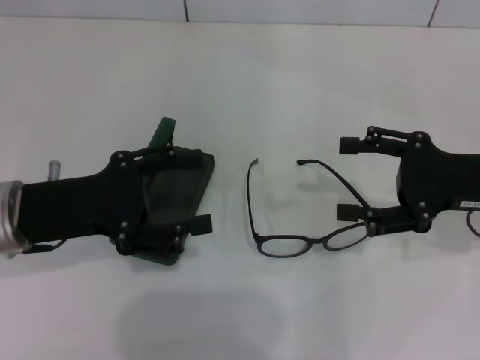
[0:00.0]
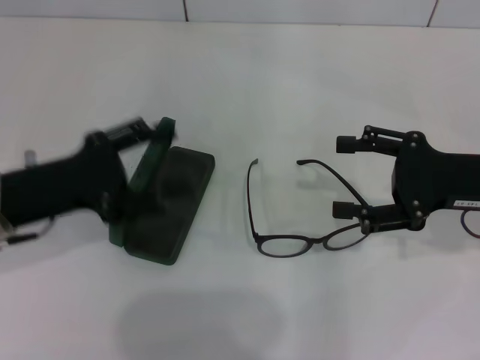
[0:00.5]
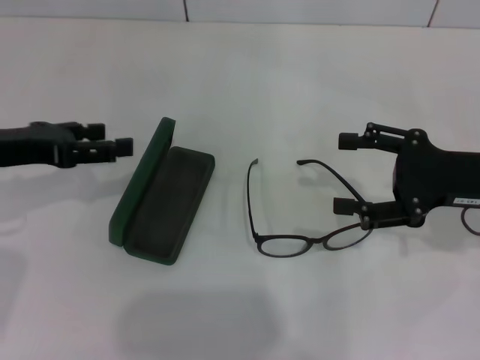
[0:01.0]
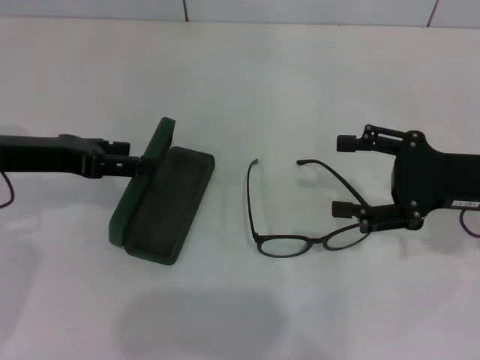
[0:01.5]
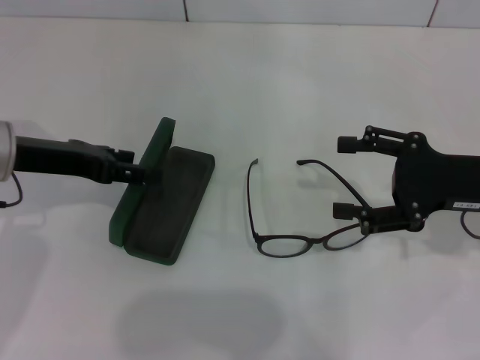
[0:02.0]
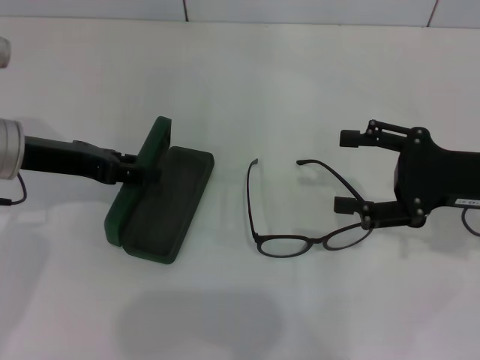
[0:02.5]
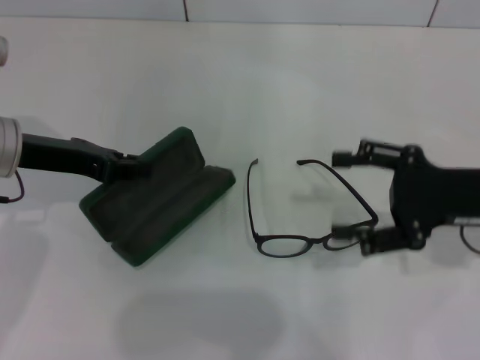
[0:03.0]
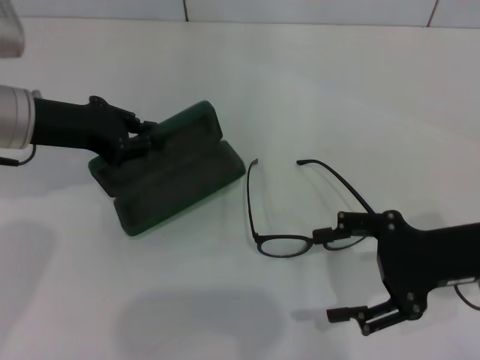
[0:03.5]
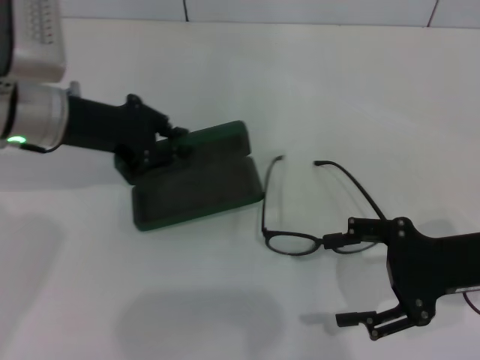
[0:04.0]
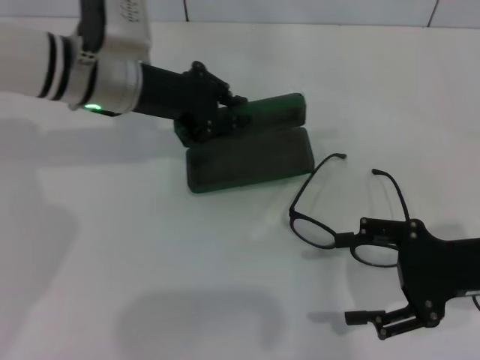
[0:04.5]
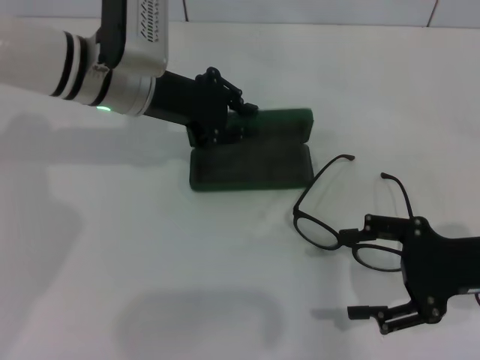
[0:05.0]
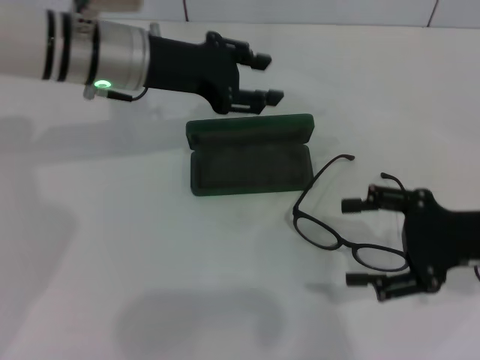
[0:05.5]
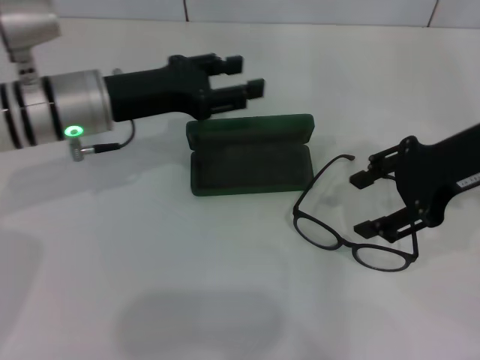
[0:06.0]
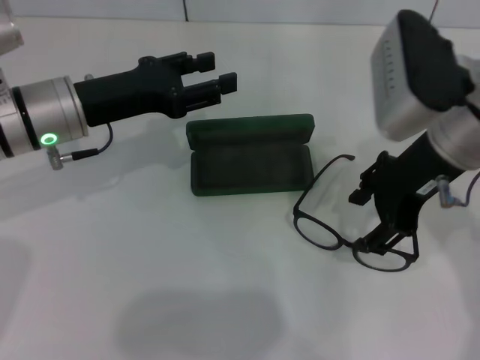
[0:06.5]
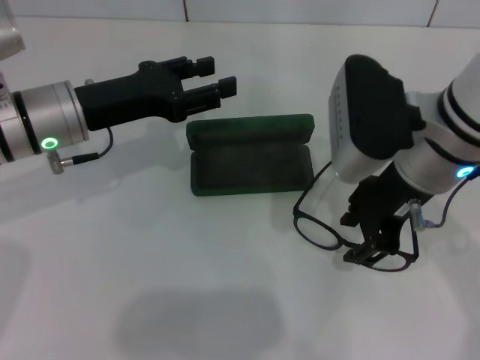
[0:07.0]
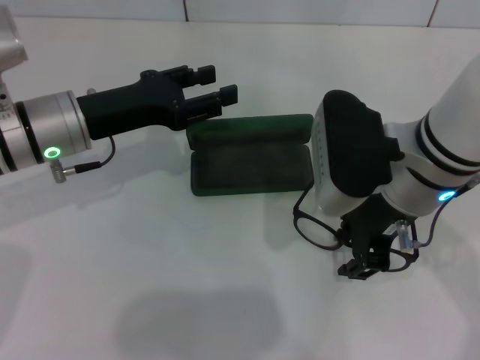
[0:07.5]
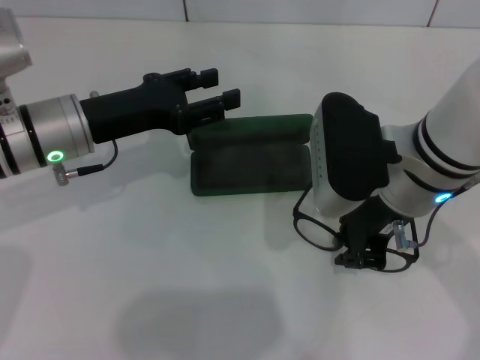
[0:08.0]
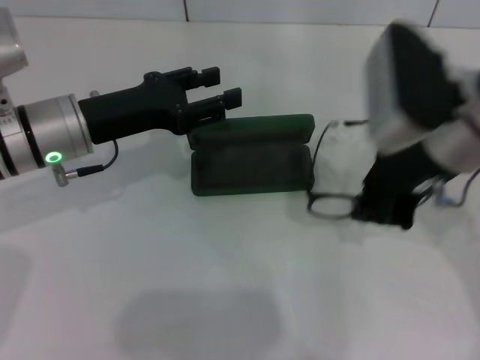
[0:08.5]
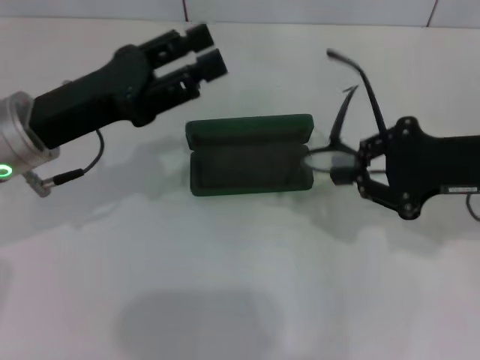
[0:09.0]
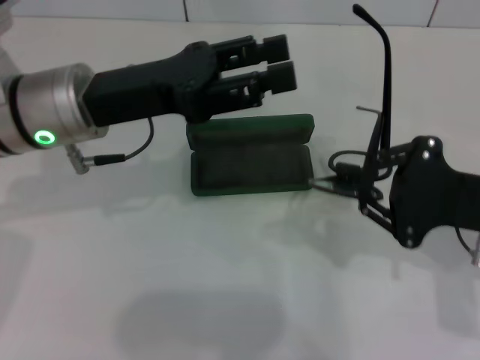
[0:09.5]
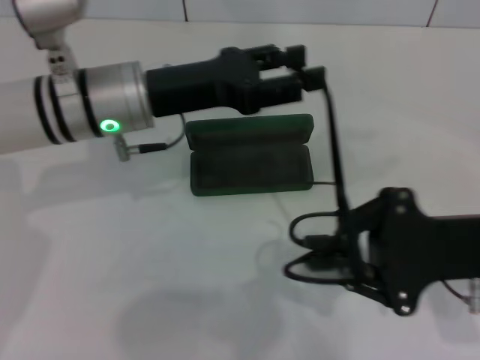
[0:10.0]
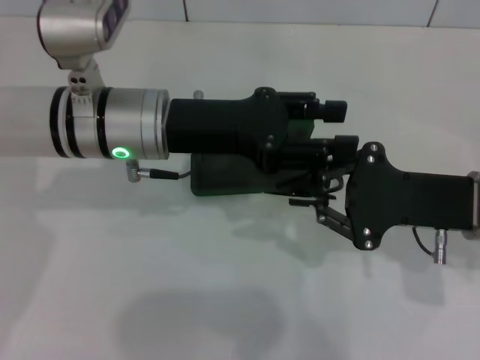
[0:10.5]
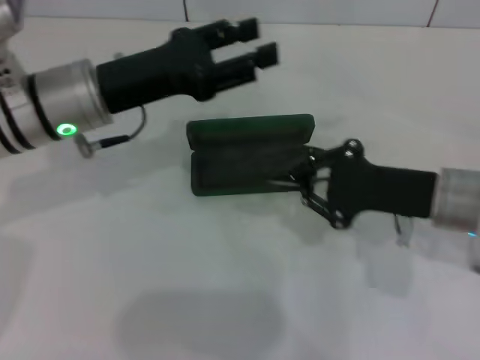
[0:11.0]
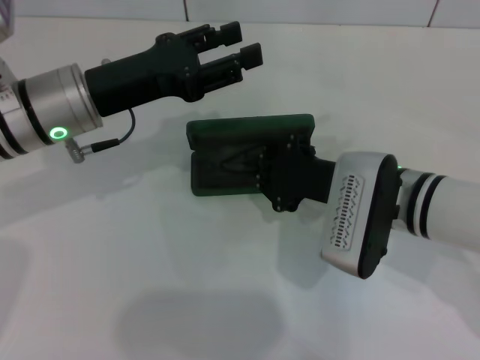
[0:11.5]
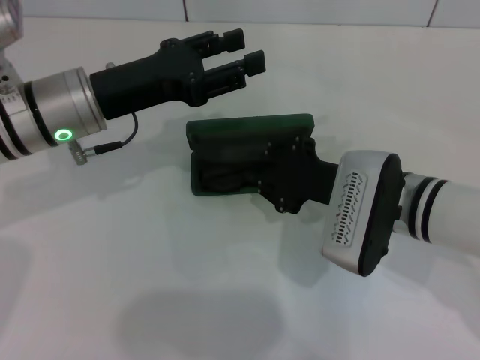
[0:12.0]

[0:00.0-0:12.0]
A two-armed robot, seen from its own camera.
Step, 0:00.0 to 0:02.5: Grab the glasses case with your left hand.
Step, 0:03.0 to 0:05.5: Place the glasses case in the center of the table with your left hand.
Step, 0:06.0 to 0:08.0: Grab the eyeglass frame with your right hand.
Step, 0:08.5 to 0:10.0: Fold the frame with your left hand.
0:00.0 to 0:02.0: The left gripper is displaced forward by approximately 5 cm.
0:02.0 to 0:04.0: The left gripper shifts by roughly 5 cm, and closes.
0:04.0 to 0:06.0: The left gripper opens. The right gripper goes some 10 cm upward and forward.
0:06.0 to 0:08.0: The right gripper is displaced to the left by about 10 cm, and closes.
0:08.0 to 0:10.0: The right gripper is displaced to the right and backward by approximately 10 cm. Meanwhile the left gripper shifts roughly 5 cm to the right.
0:10.0 to 0:12.0: The right gripper is displaced to the left and forward by some 10 cm.

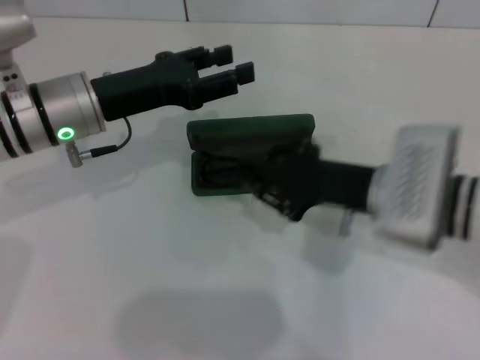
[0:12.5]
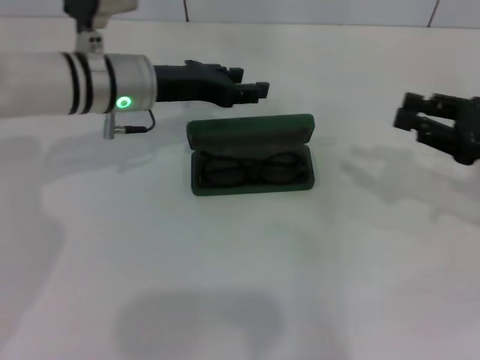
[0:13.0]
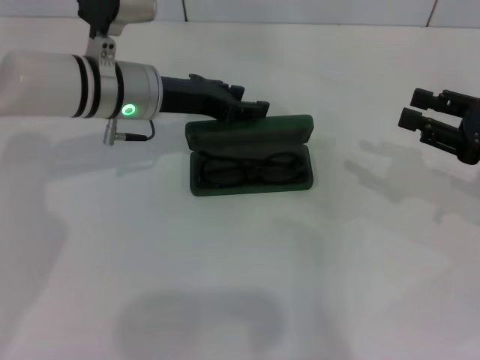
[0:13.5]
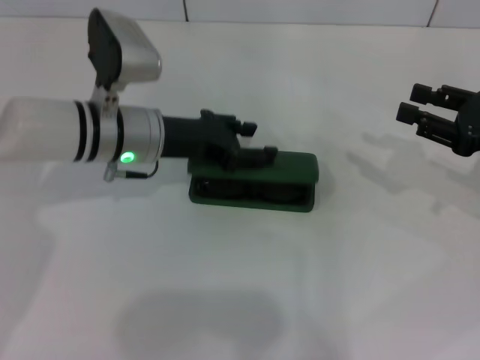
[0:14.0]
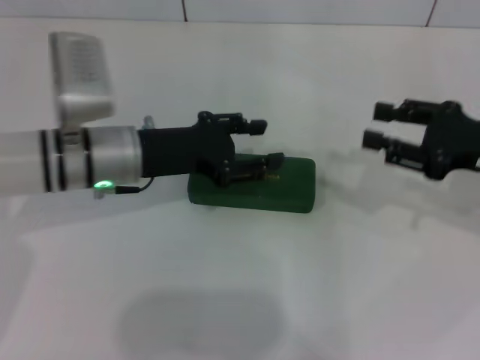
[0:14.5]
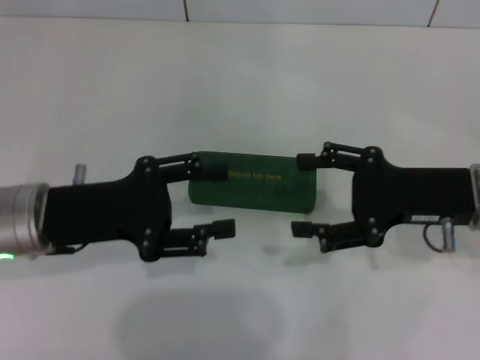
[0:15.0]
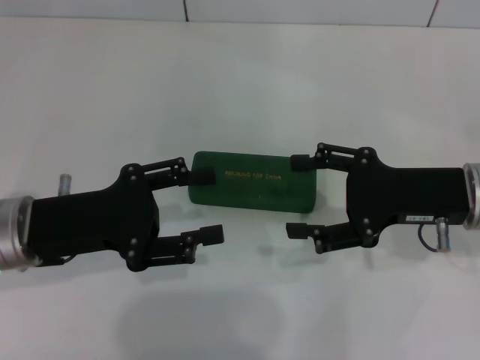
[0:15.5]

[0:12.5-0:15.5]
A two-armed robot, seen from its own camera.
Step, 0:12.5 to 0:14.0: Close the glasses case with your left hand.
0:12.5 to 0:14.0: The right gripper goes about 15 cm to the right. Meanwhile the left gripper shifts by about 5 cm.
0:14.0 to 0:15.5: The right gripper travels to the left by approximately 10 cm, and opens its fingers; the left gripper moves backward and to the left, about 15 cm.

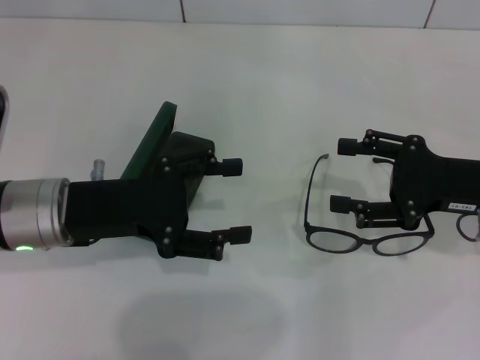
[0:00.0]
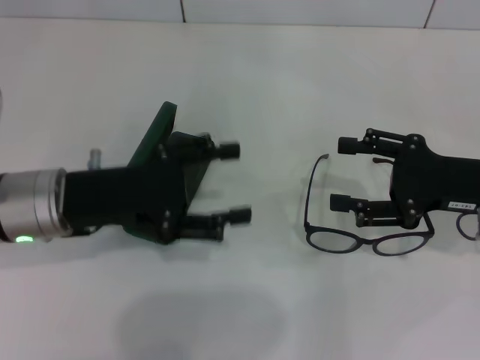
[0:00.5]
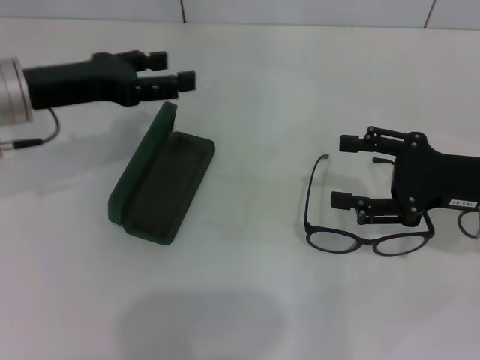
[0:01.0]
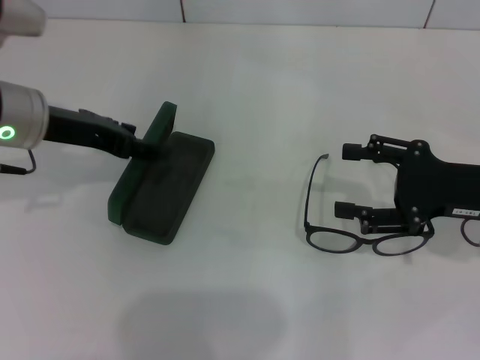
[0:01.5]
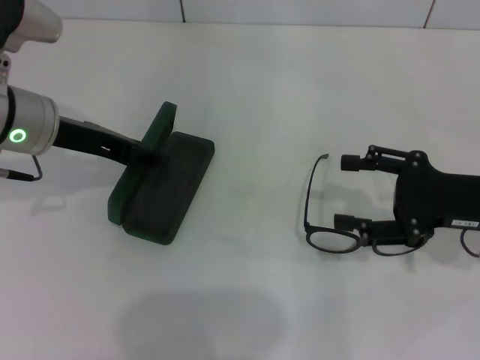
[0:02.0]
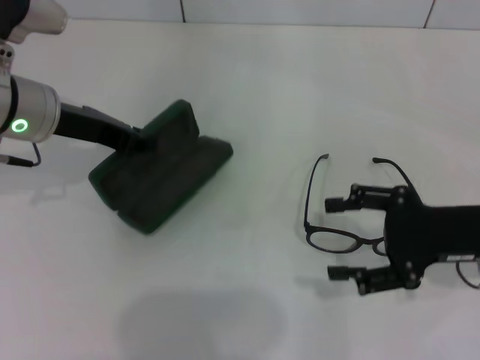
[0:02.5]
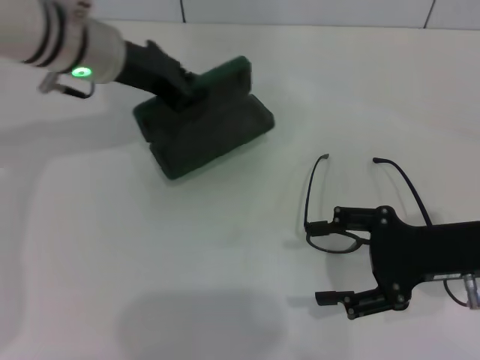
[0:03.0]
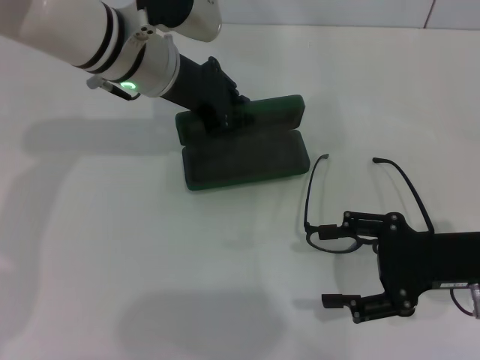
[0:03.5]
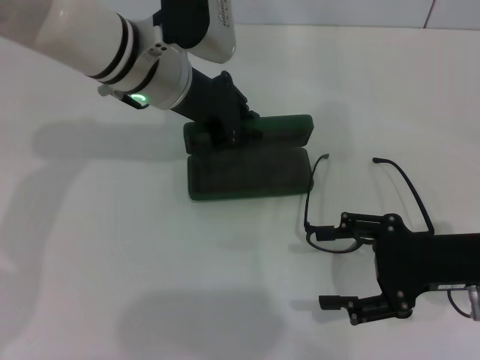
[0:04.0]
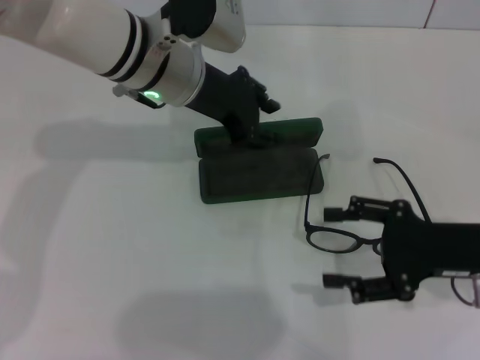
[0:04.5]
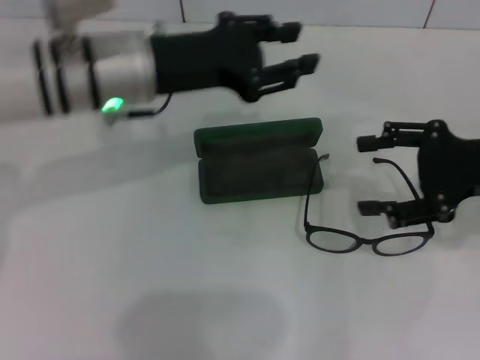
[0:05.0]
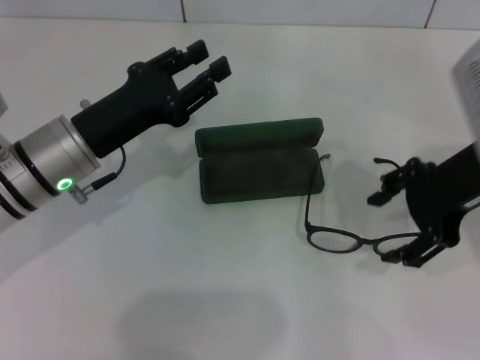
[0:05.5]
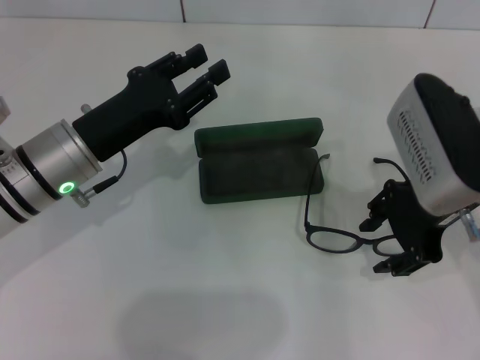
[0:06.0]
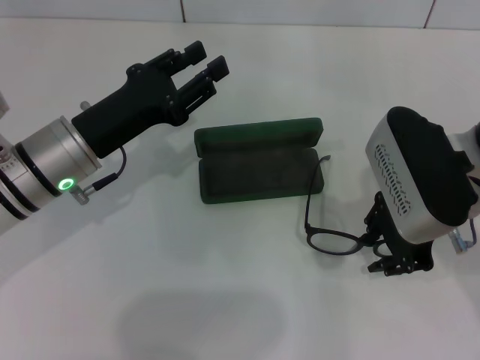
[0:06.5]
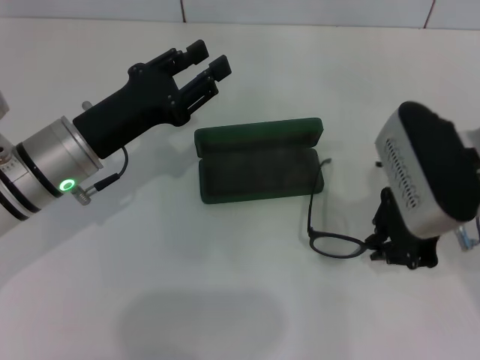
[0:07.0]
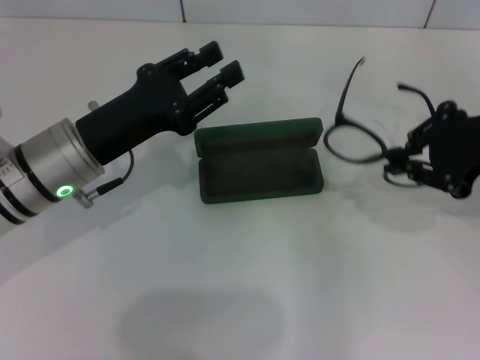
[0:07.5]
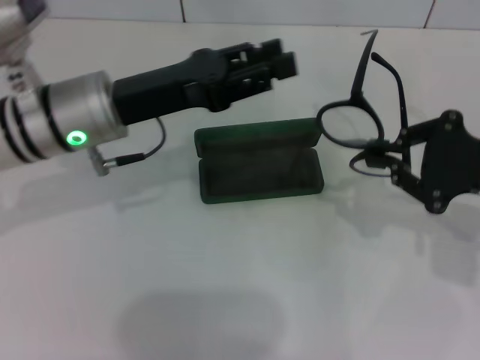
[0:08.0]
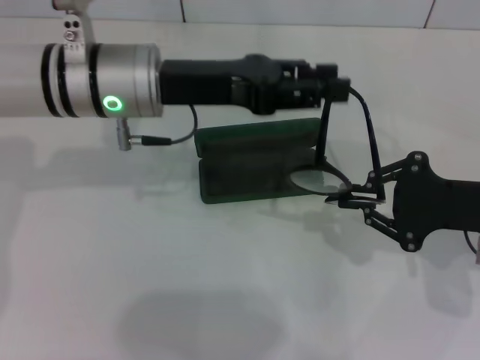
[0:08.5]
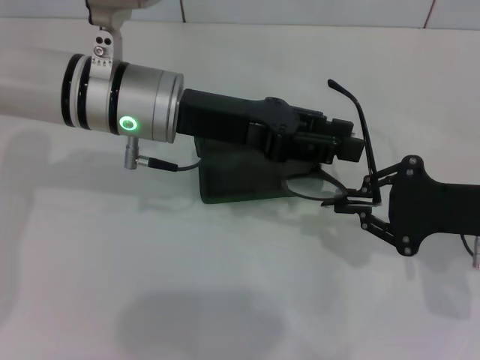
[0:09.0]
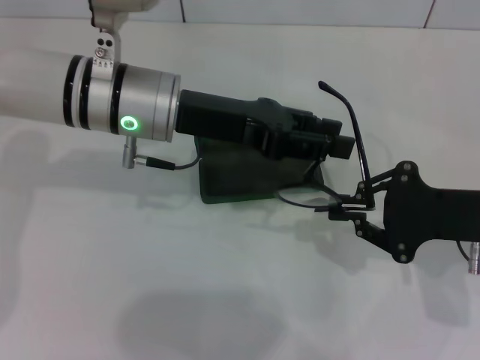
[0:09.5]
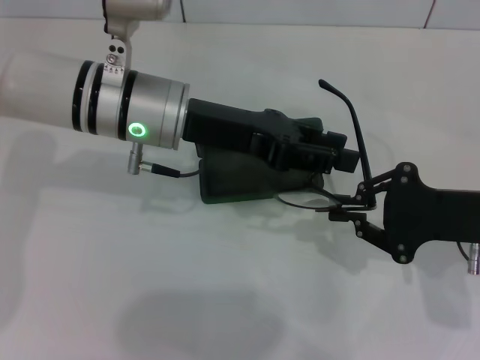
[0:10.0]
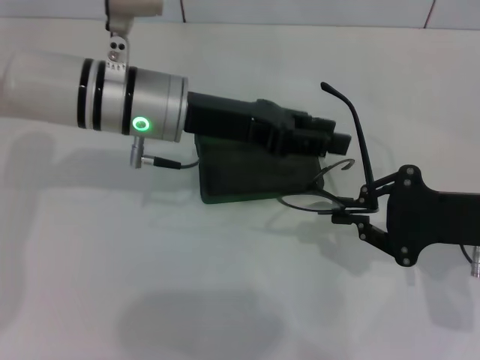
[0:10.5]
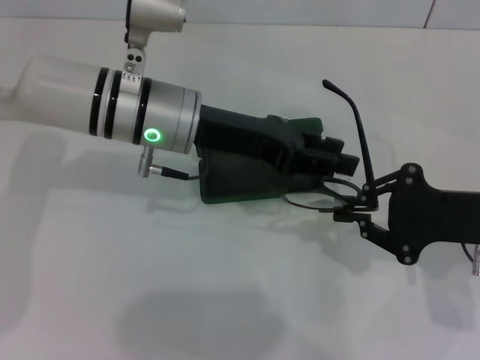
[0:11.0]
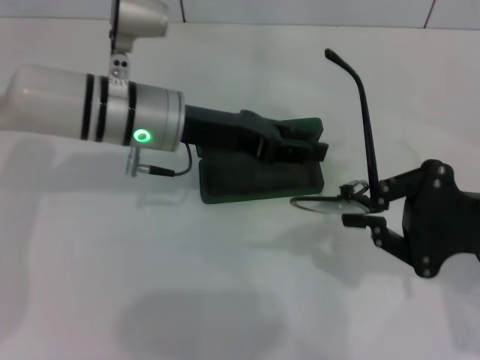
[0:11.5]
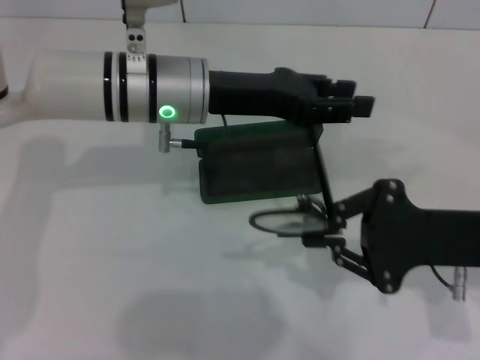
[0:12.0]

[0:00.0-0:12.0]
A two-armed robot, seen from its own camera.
Step, 0:00.0 to 0:02.5: Grab the glasses case with your left hand.
Step, 0:03.0 to 0:04.0: Place the glasses case in the center of the table with your left hand.
Step, 0:04.5 to 0:06.5: Grab the eyeglass frame with your right hand.
0:00.0 to 0:02.0: The left gripper shifts roughly 10 cm forward.
0:02.0 to 0:04.0: The left gripper moves to the right and forward, roughly 15 cm, and closes.
0:04.0 to 0:06.0: The left gripper shifts roughly 15 cm backward, to the left and downward, and opens. Meanwhile the right gripper heads upward, to the left and forward, covering some 15 cm.
0:06.0 to 0:08.0: The right gripper moves to the right, roughly 10 cm, and closes up. Meanwhile the left gripper goes approximately 5 cm upward.
0:08.0 to 0:10.0: The left gripper shifts by some 5 cm.
